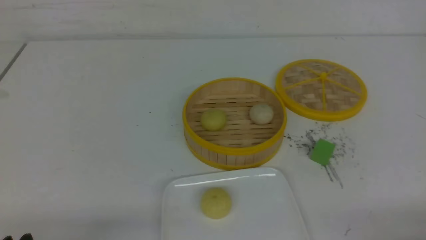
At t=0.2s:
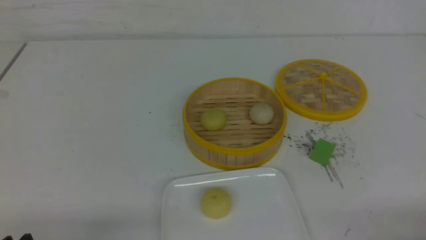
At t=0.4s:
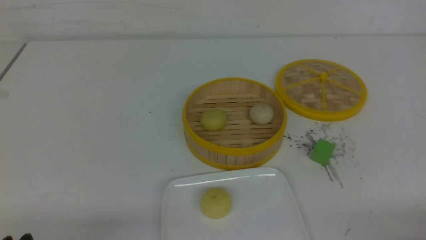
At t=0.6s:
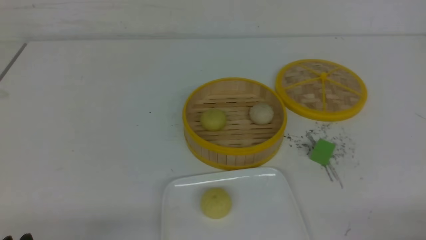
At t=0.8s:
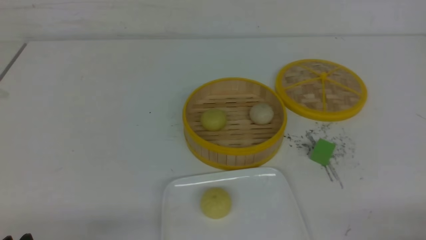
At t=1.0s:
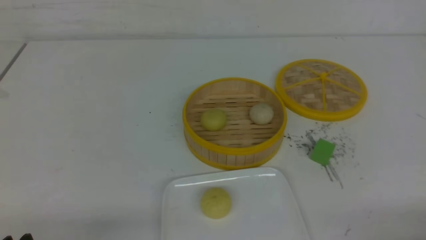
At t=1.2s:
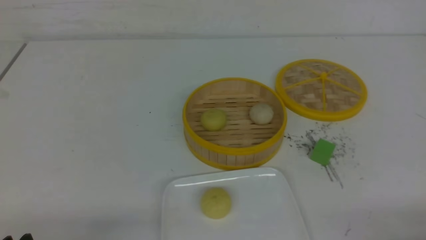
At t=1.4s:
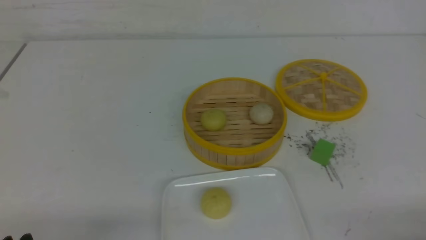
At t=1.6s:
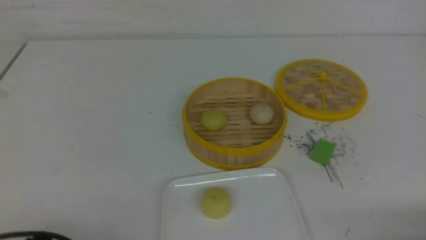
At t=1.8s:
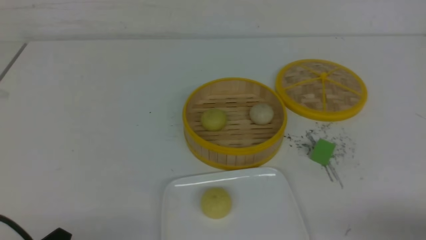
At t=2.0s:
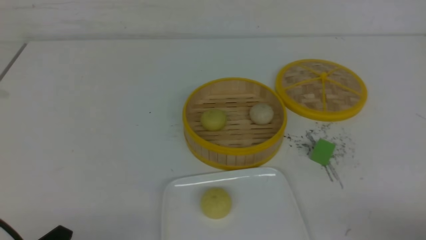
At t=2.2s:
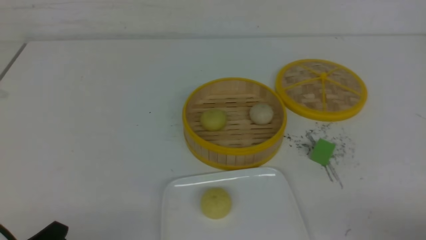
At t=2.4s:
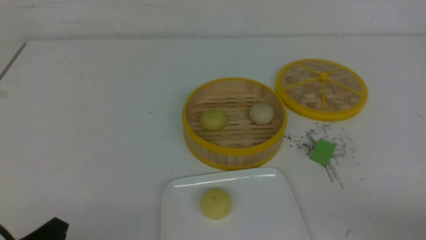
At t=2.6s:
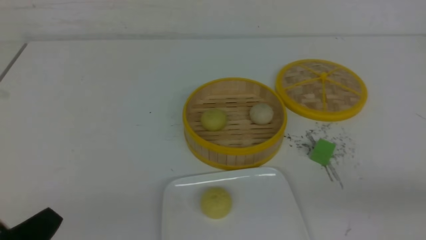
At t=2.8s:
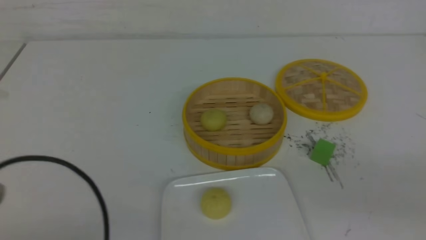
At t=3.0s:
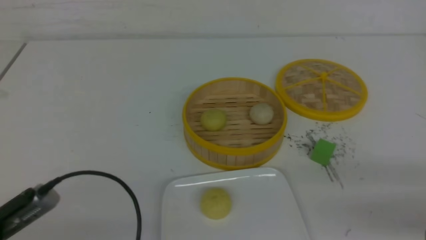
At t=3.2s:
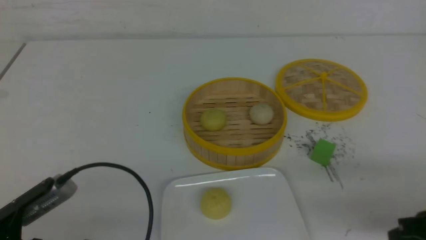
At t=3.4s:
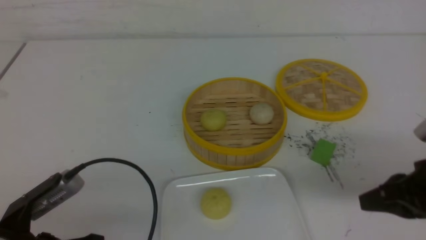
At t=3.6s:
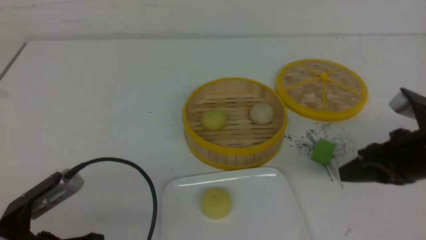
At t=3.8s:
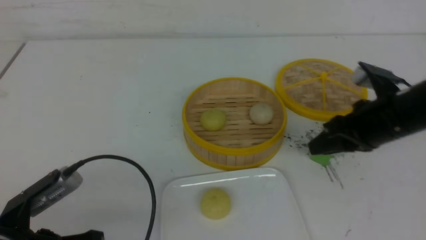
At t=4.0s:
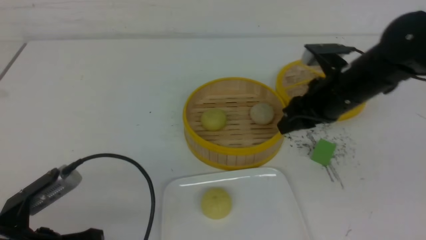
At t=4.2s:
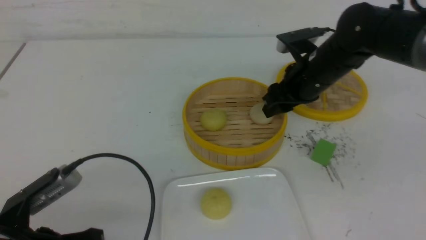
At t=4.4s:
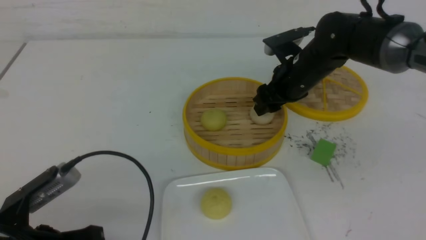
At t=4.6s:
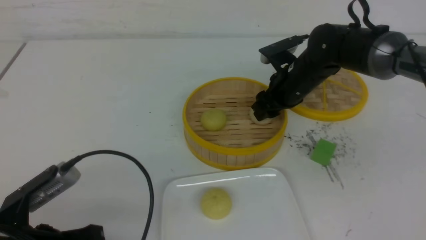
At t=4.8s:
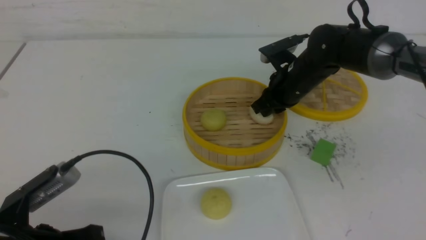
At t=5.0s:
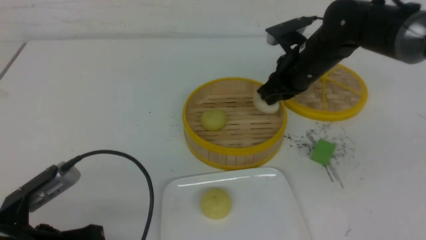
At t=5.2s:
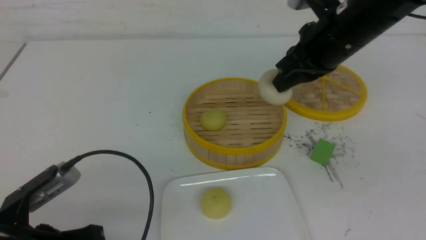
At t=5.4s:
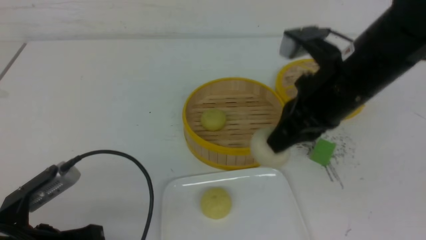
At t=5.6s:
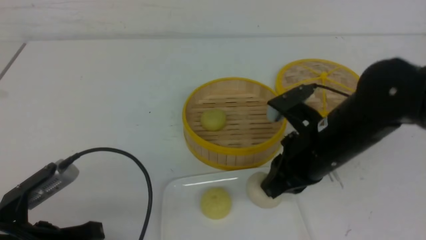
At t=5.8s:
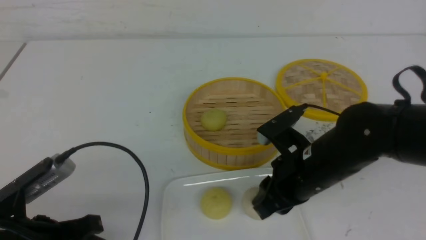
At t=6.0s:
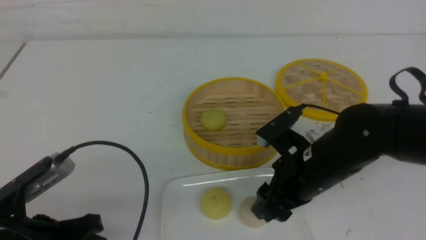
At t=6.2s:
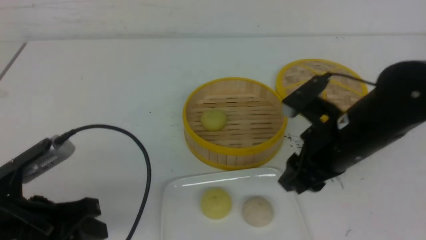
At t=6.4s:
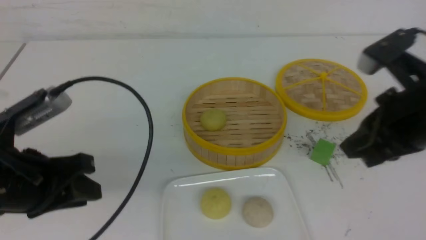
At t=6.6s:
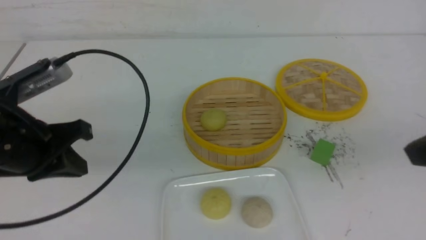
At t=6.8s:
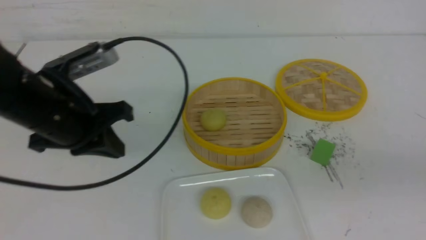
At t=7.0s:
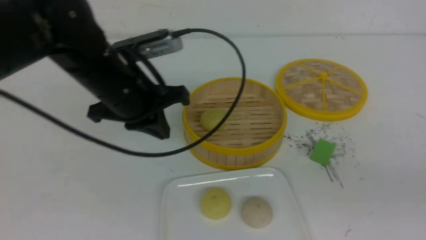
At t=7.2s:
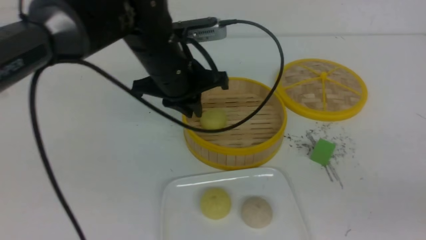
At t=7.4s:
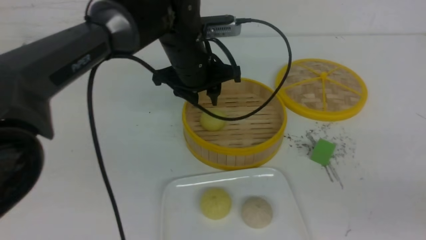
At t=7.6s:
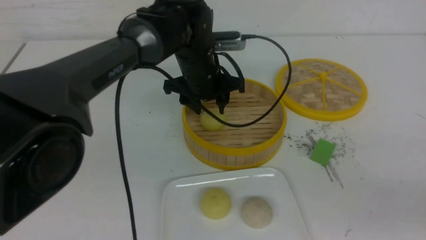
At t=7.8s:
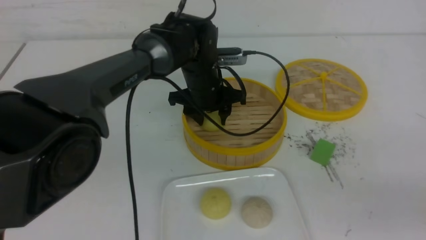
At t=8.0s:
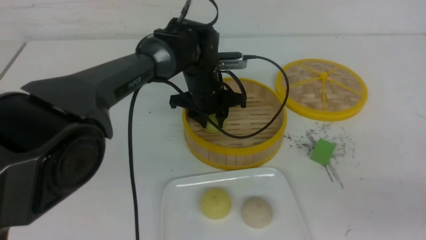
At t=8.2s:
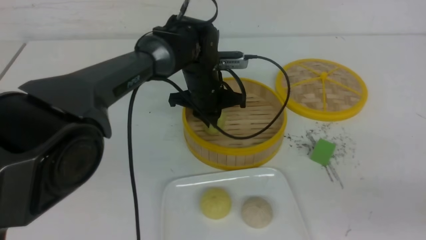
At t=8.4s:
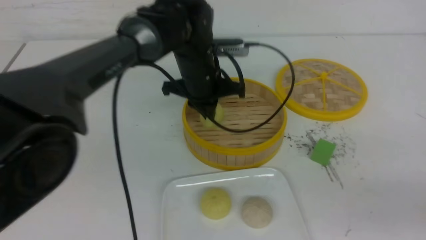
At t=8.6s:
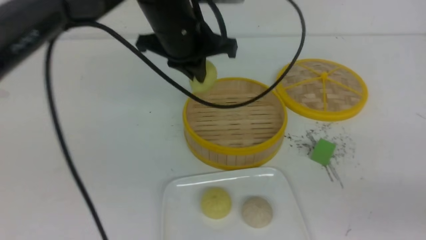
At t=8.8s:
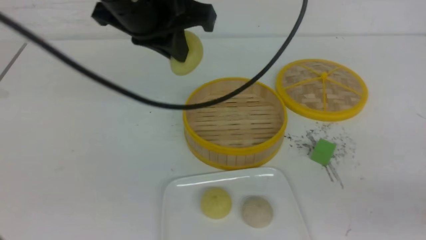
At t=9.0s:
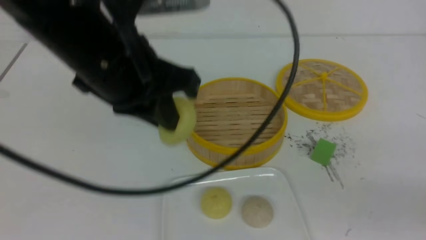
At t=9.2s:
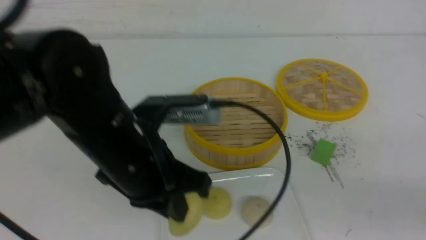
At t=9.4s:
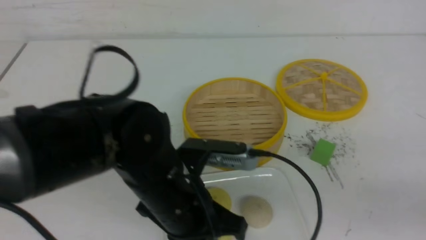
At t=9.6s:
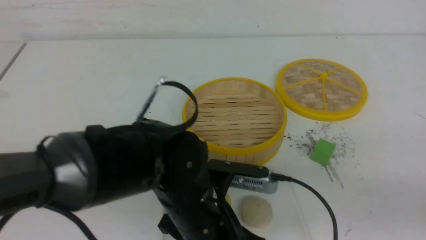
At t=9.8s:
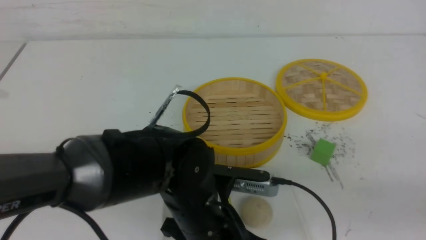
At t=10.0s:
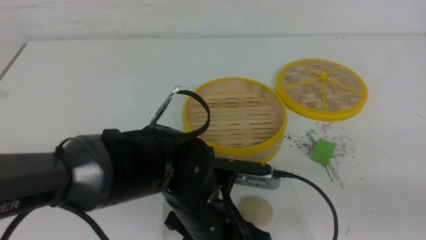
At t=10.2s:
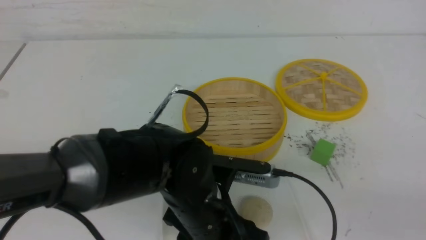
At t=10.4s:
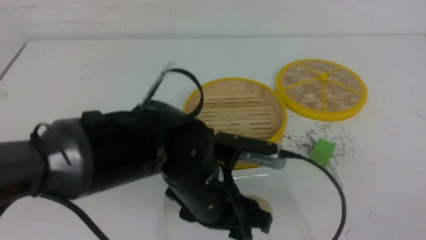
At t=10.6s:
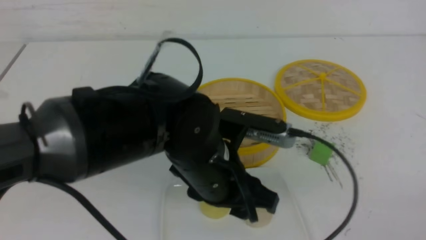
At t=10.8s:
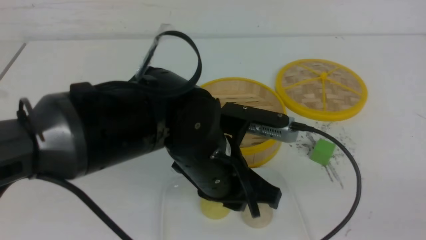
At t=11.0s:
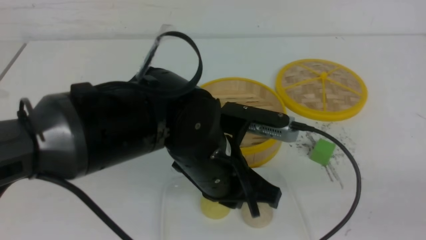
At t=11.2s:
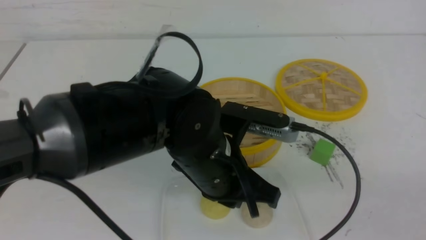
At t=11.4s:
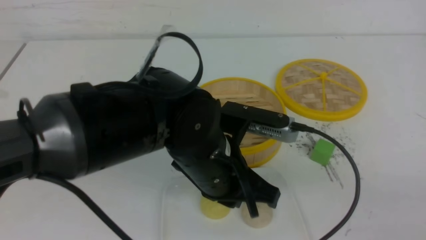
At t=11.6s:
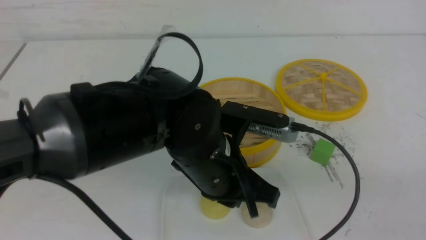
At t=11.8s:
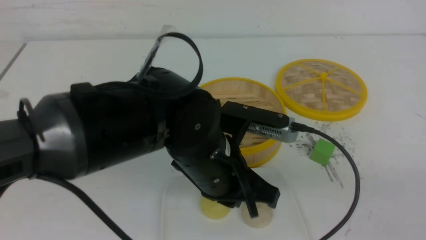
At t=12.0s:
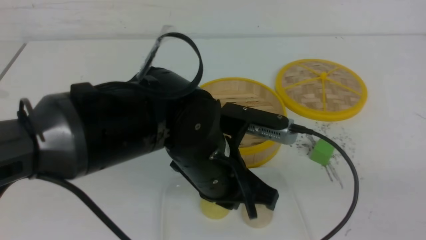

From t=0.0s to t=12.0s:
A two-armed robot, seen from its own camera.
Step, from t=0.0s to t=4.8s: use the right arm to grab the steamed stuffed bun that is closest to it.
Step, from t=5.0s to t=6.0s: use the right arm to put the steamed stuffed bun into the plate.
Step, from t=6.2s to t=8.0s: use the left arm to grab the steamed stuffed bun that is closest to it.
Step, from t=8.2s to t=9.8s: use the left arm to put the steamed stuffed bun into the plate.
From t=1.6s to t=3.0s: The left gripper shifts approximately 5 cm upward, and closes its fingers.
From t=3.0s to t=4.4s: The right gripper travels forward and to the left by roughly 35 cm, and opens its fingers.
From t=4.4s to t=6.0s: The right gripper heads backward, covering roughly 15 cm, and closes, then reopens.
From t=6.0s to t=7.6s: The right gripper goes some 25 cm backward, to the right and upward, and closes up; the left gripper shifts some 35 cm forward and to the right, and opens its fingers.
From t=7.6s to t=9.0s: The left gripper moves backward, upward and to the left, roughly 20 cm, and closes up.
From t=9.0s to t=10.4s: The right gripper moves backward, some 10 cm; the left gripper heads downward and to the right, covering about 15 cm, and opens up.
From t=10.4s to t=12.0s: The left gripper closes its fingers.

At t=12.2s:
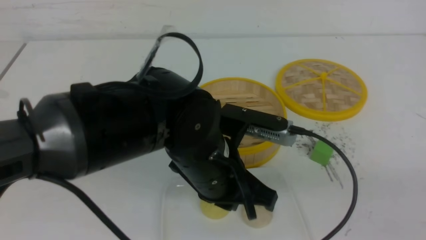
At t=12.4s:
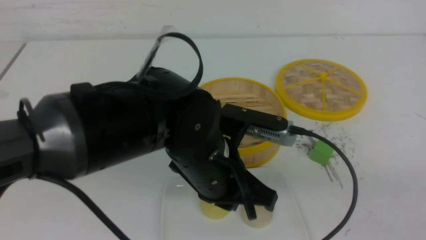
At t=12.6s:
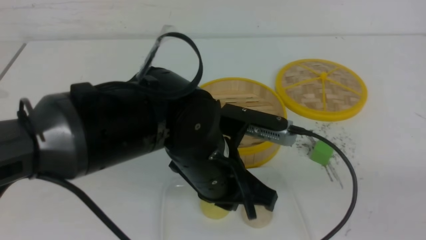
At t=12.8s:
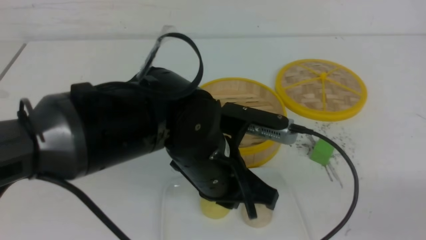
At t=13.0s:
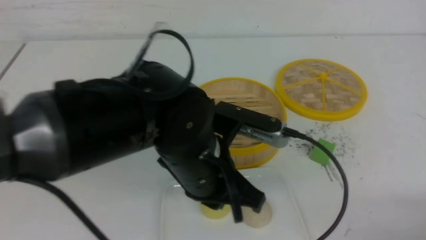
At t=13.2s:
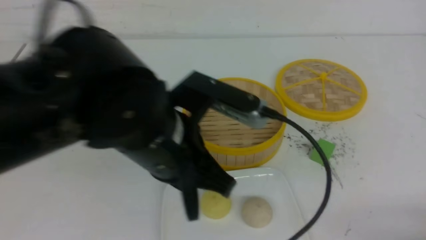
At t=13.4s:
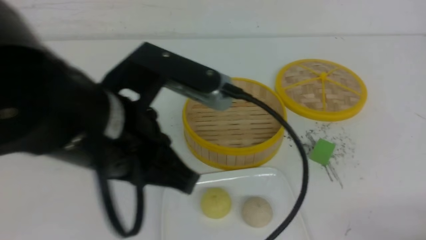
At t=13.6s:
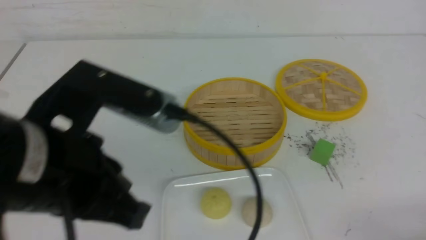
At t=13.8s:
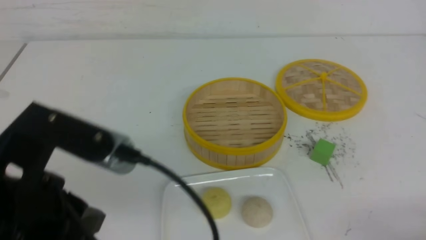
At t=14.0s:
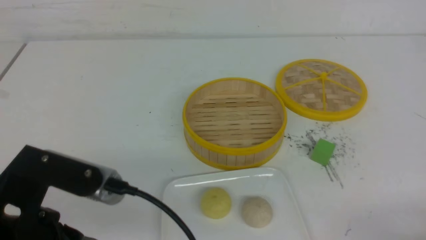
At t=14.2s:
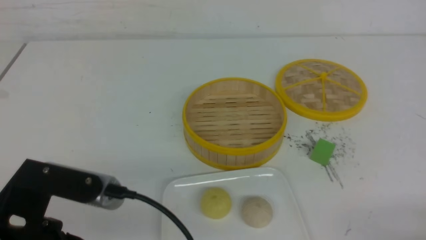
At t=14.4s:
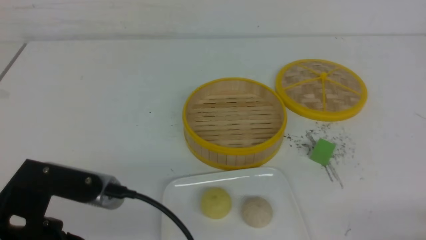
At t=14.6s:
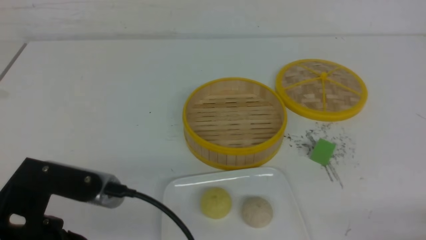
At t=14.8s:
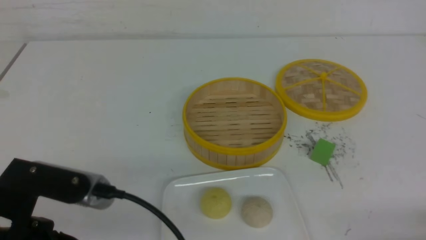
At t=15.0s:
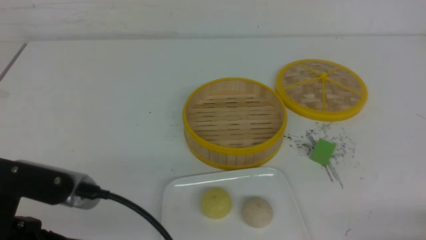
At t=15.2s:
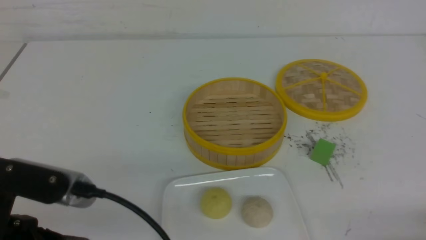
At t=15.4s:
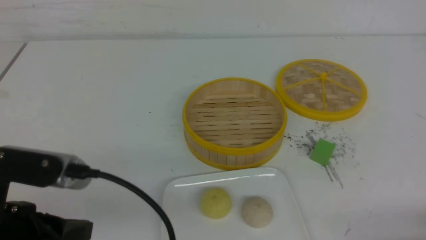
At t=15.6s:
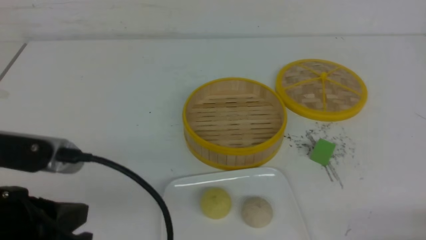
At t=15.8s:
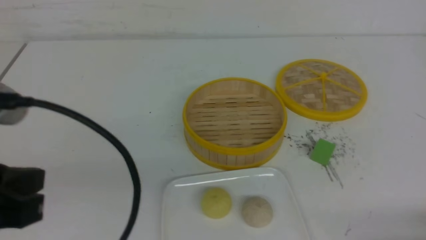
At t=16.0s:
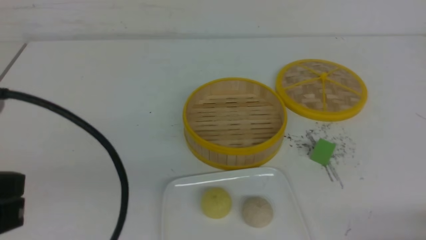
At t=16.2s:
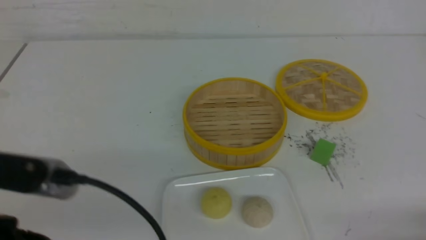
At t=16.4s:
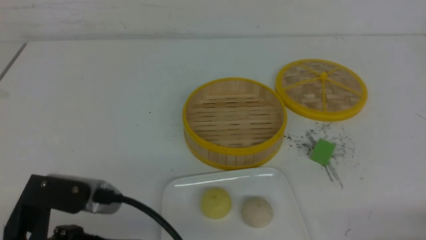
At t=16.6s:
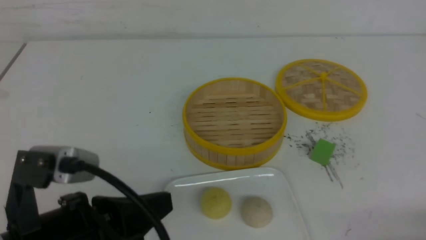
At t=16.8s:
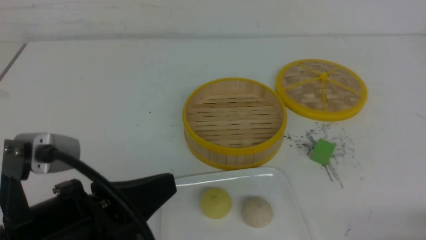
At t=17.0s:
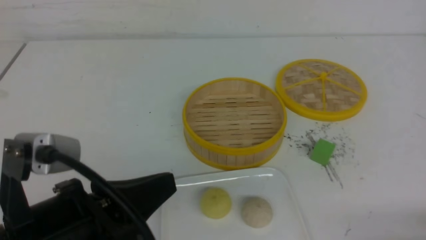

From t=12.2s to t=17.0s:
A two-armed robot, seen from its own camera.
From t=12.2s to t=13.8s: The right gripper moves downward, roughly 15 cm. The left gripper shifts about 20 cm to the left, backward and upward.
From t=13.8s to t=15.4s: The grippers make only small movements.
